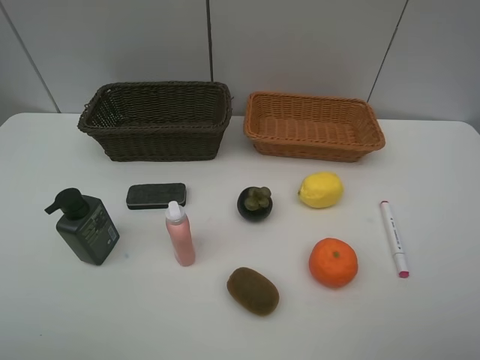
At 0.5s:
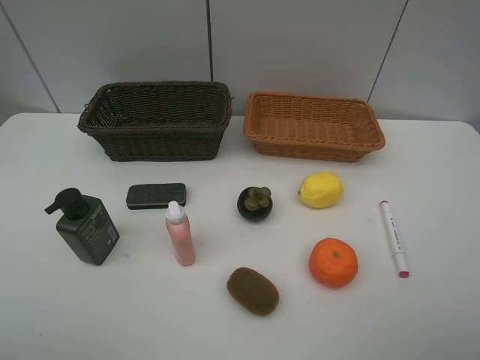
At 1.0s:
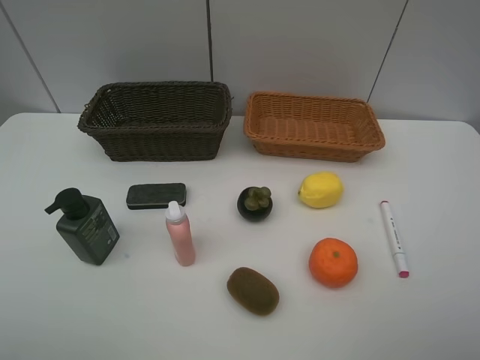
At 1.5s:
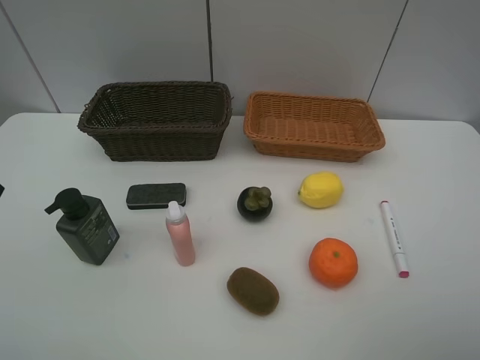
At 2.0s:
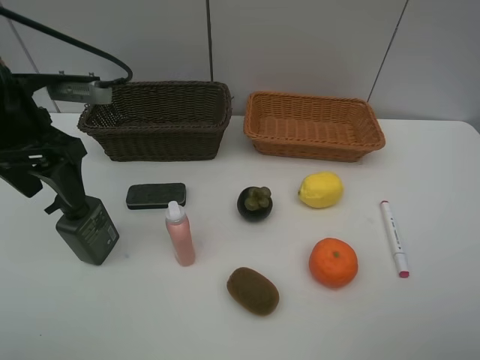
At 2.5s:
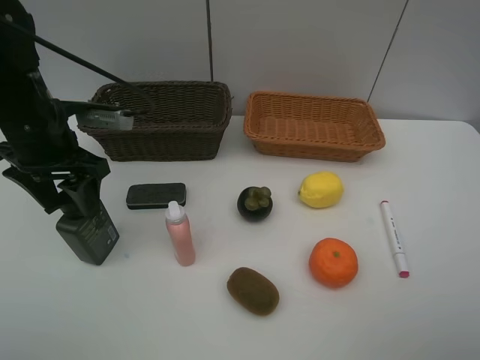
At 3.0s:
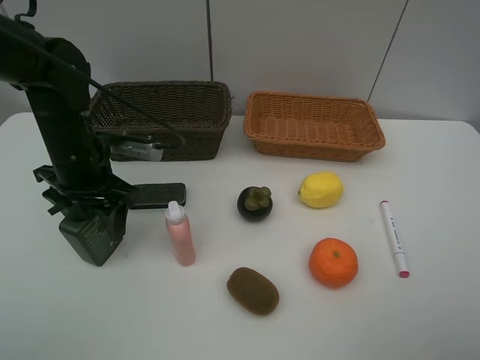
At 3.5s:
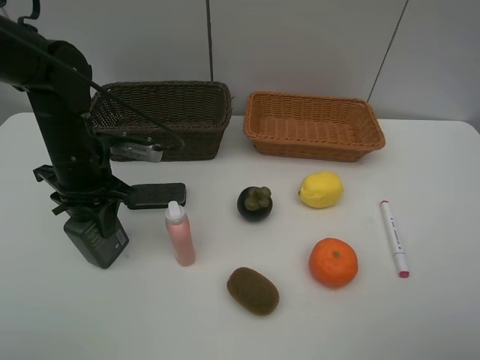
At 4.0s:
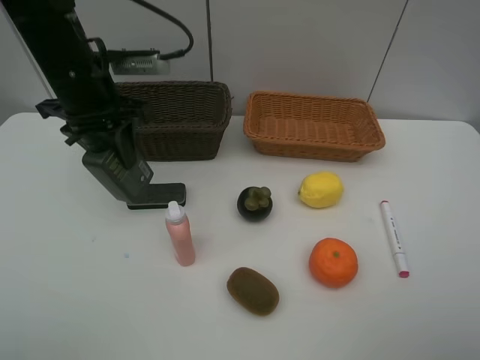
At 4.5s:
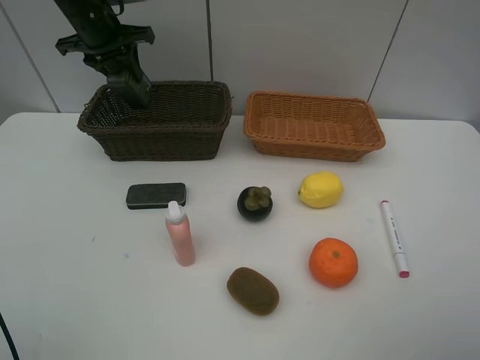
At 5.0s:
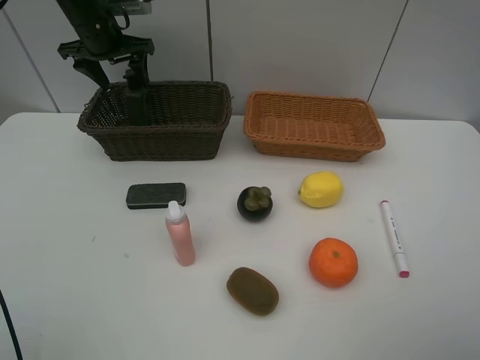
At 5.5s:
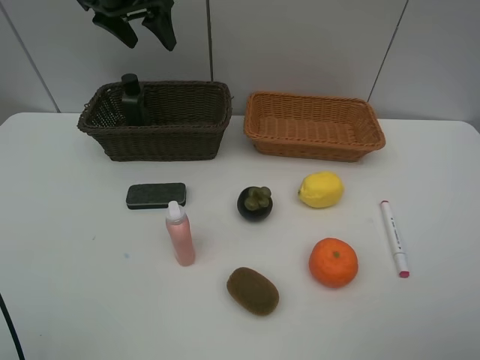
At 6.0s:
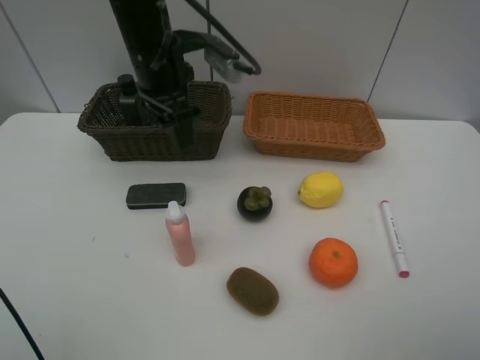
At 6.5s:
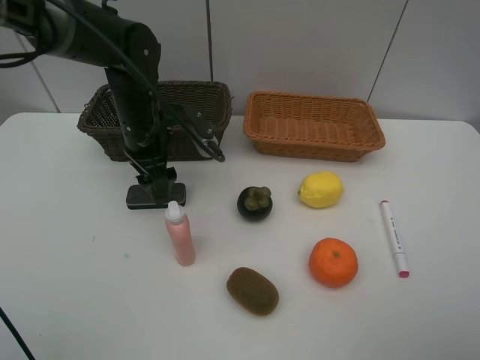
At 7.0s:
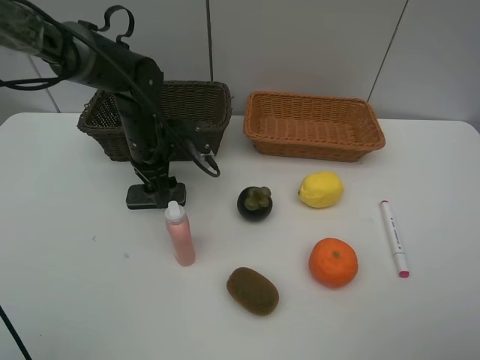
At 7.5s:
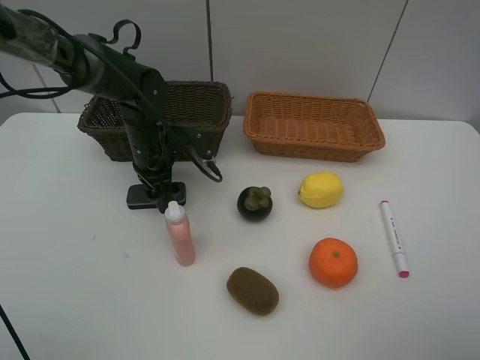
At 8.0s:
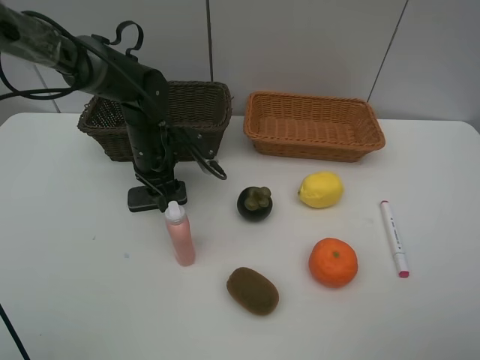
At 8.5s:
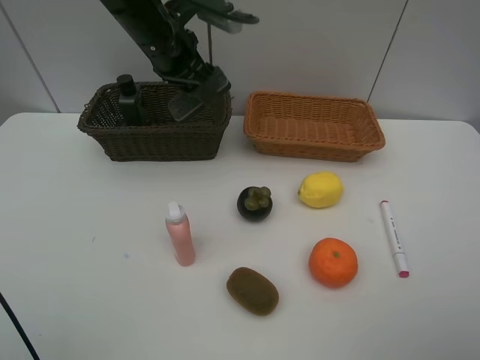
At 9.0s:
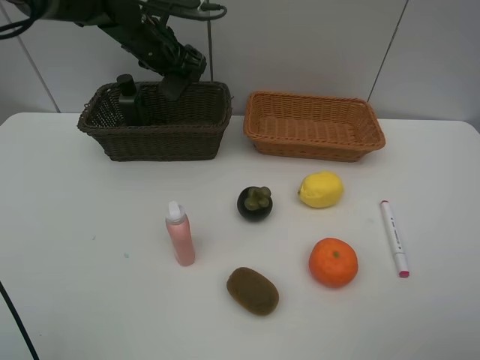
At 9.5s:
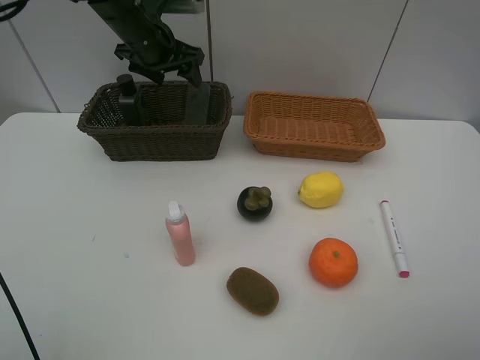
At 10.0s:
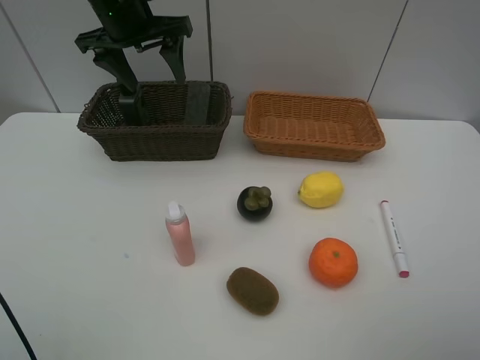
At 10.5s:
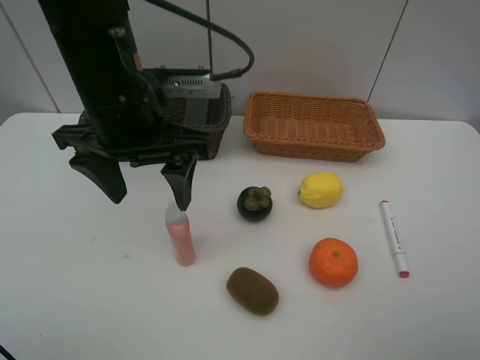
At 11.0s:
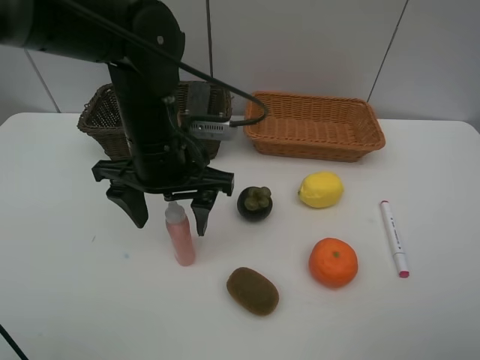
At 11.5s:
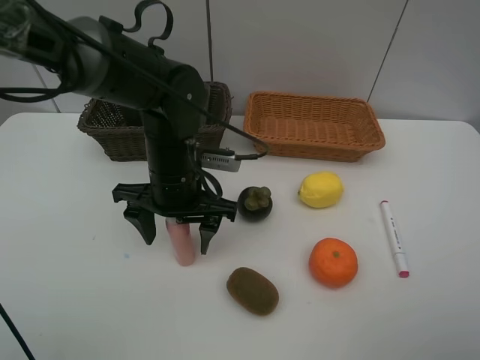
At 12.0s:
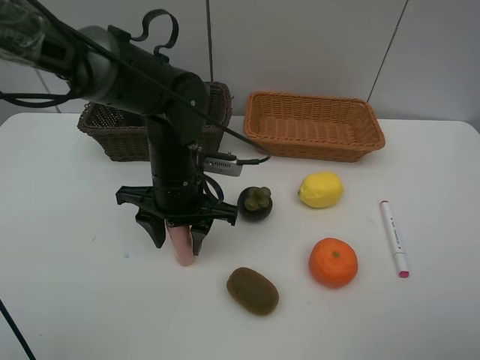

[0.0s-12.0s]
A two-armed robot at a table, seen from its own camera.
Task of the whole recording: Place multiple objects separately in different baskets.
Step, 0.0s to 3.5s: Pick up the hard facial cleanser with left gripper.
Step, 4.0s to 5.0s: Place the hard facial cleanser in the dark basket with left gripper.
Step, 5.5s to 8.0s: Pick up blackboard eraser with left gripper.
Step, 8.5s to 9.5s: Place the blackboard eraser in the dark basket with left gripper.
0.0s to 2.0s: The left gripper moves forward, about 30 cm.
2.0s to 4.0s: The left gripper goes roughly 10 cm forward and to the right, reaches approximately 10 cm downward, then returns, and closes its fingers.
4.0s to 6.0s: The left gripper is displaced to the right by some 10 cm, travels forward and back again, about 15 cm each way, and opens.
6.0s to 8.0s: The left gripper is displaced downward by roughly 15 cm, and closes its fingers.
8.0s to 10.0s: The left gripper moves up and down over approximately 20 cm, changing direction 2 times, and opens its fingers.
10.0s to 12.0s: The left gripper travels downward, backward and to the right by approximately 20 cm, and closes its fingers.

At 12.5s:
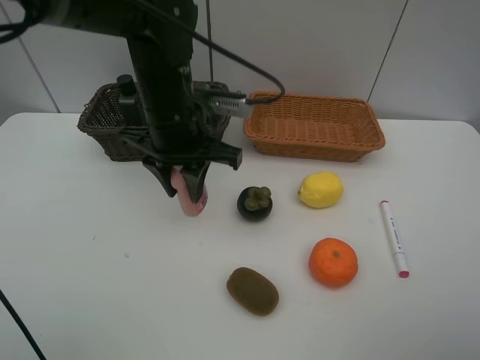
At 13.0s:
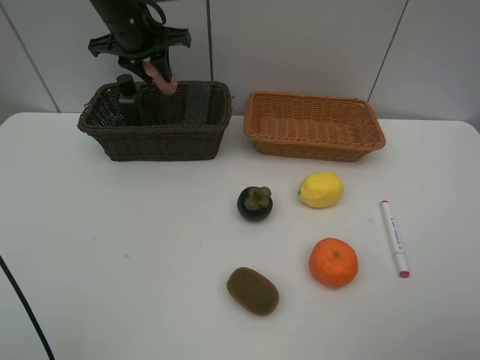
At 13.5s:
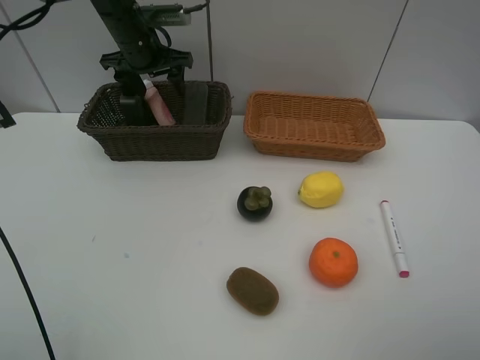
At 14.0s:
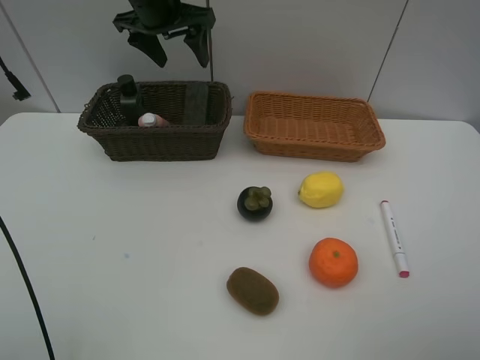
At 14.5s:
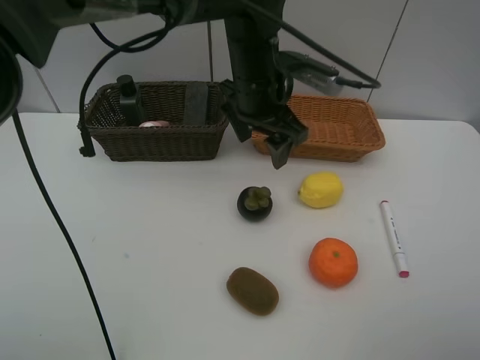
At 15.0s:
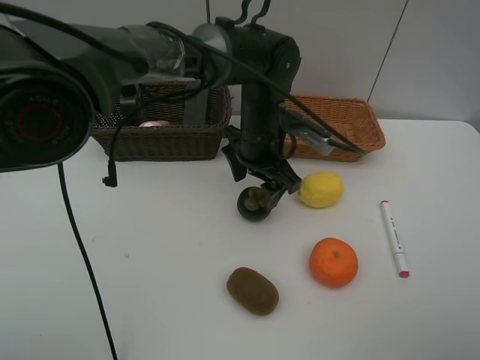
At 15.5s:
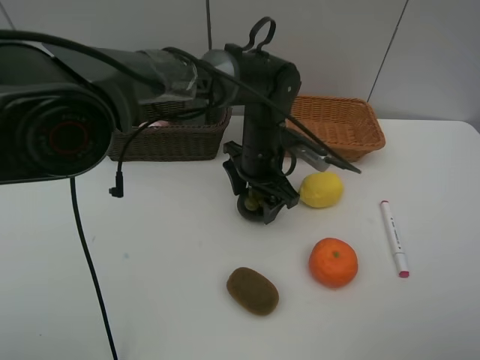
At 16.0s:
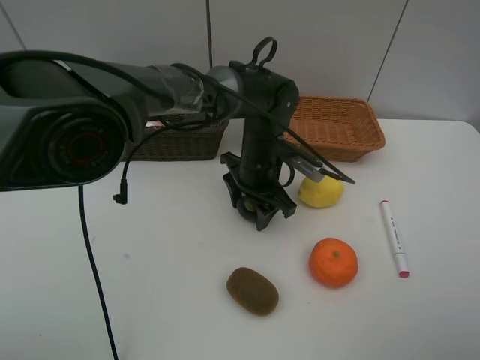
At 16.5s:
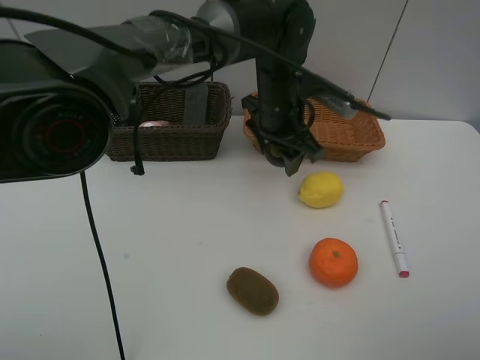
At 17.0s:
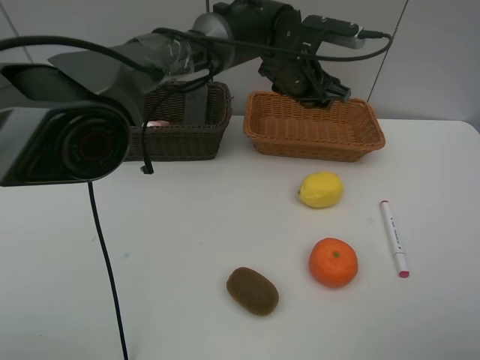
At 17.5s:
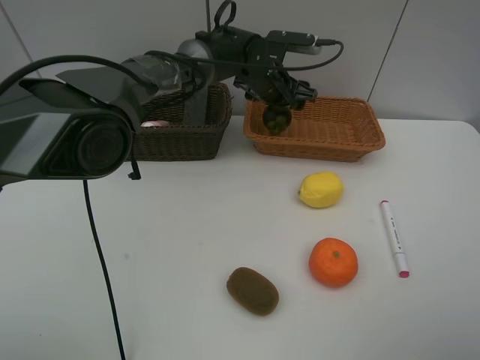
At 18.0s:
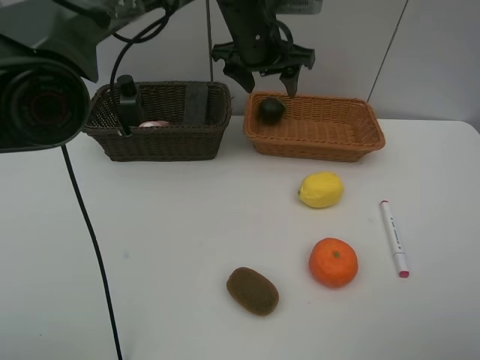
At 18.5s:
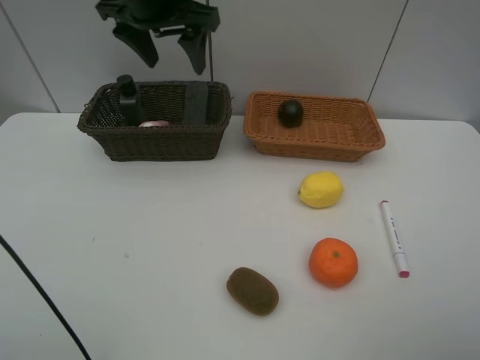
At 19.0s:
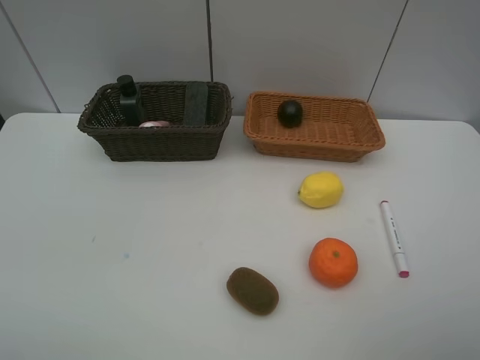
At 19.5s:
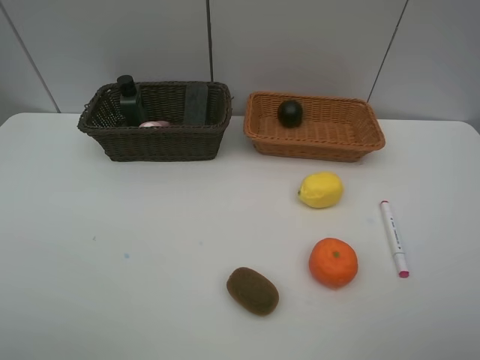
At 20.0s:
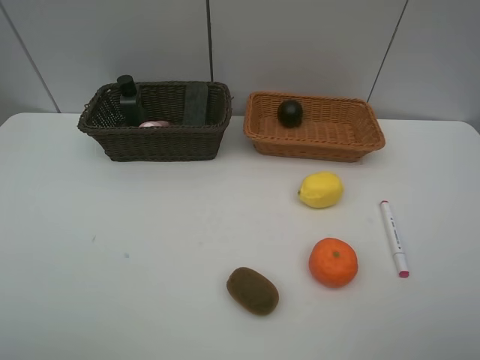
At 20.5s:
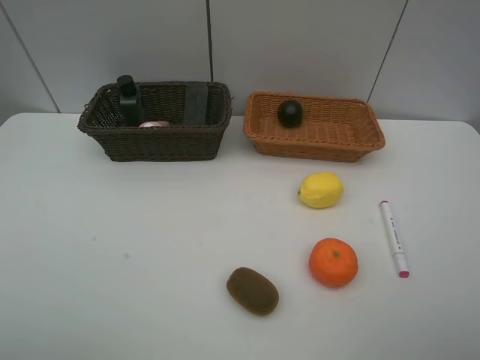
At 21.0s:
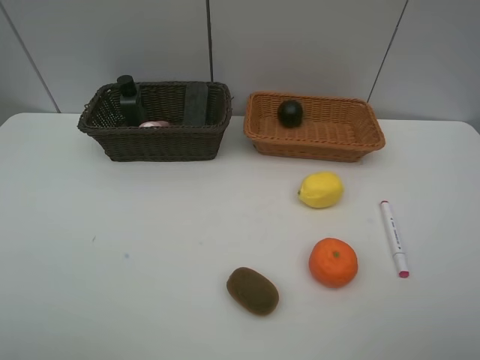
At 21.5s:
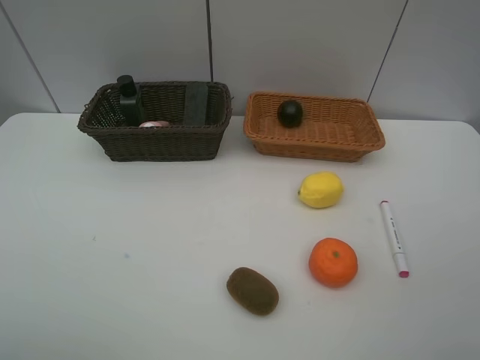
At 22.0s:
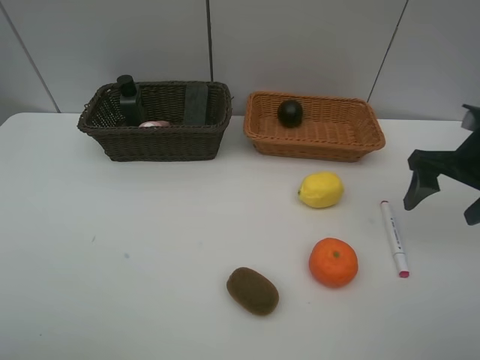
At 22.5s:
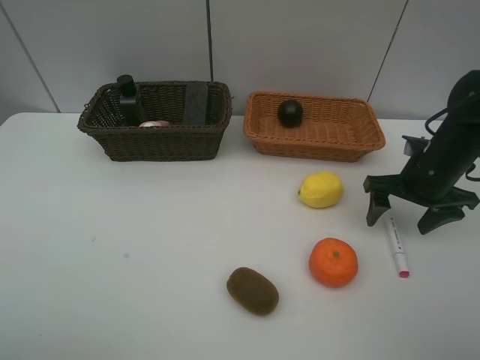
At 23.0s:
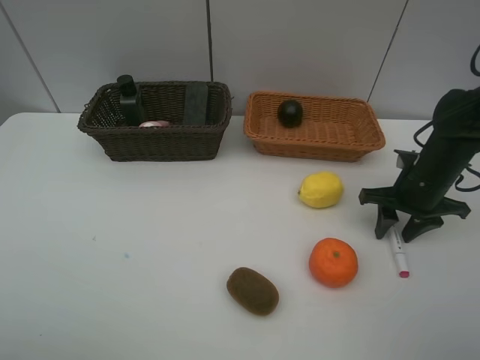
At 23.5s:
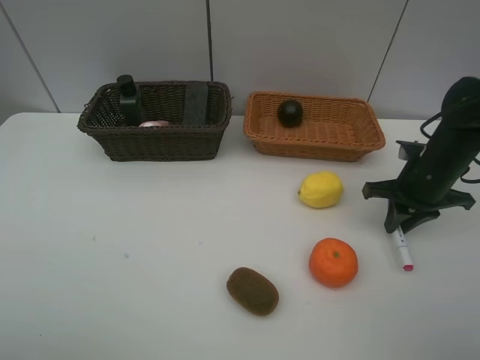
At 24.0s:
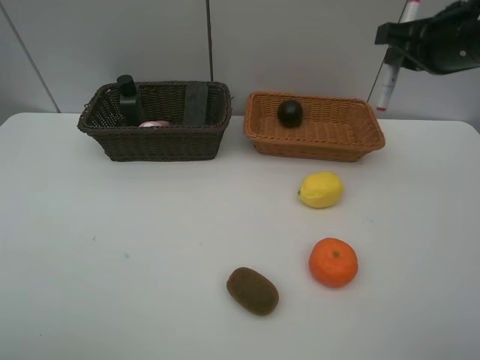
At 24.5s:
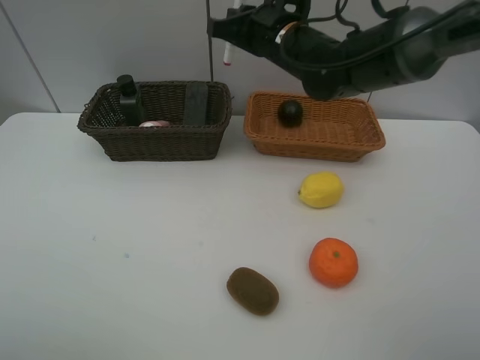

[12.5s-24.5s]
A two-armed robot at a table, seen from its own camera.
Task of the whole recording: Place multiple objects separately in different baskets.
Step, 12.5s to 13.5s: Place the laundry detergent in the dark basket with left gripper.
Step, 14.0s to 16.0s: Pick up the mangosteen with left gripper.
Step, 16.5s to 17.5s: Place the mangosteen in the light basket with left gripper.
Step, 18.0s to 23.5s: Pick up pink marker pen with right gripper.
12.5s to 14.5s: The left gripper moves to the right, roughly 10 cm, and opens its fingers.
14.5s to 16.5s: The left gripper moves approximately 10 cm downward and comes back.
16.5s to 18.5s: The left gripper travels to the left and upward by about 25 cm.
18.5s to 20.5s: The left gripper moves backward and to the left, approximately 40 cm.
20.5s to 22.5s: The right gripper shifts about 35 cm forward and downward.
22.5s to 24.5s: The right gripper travels to the left and upward by roughly 25 cm, and closes.

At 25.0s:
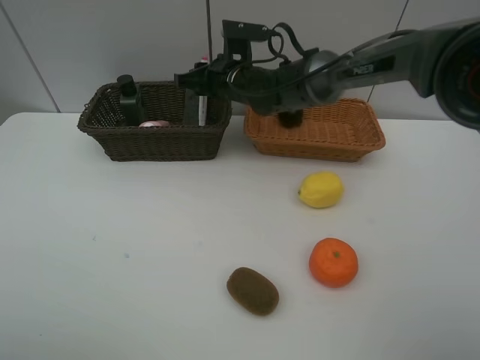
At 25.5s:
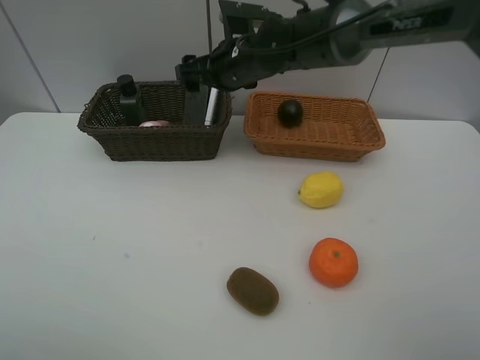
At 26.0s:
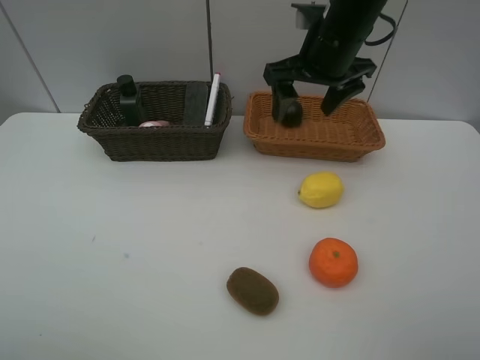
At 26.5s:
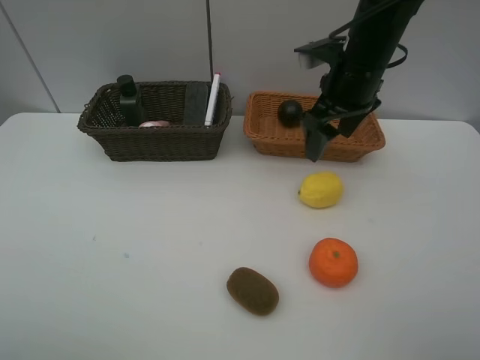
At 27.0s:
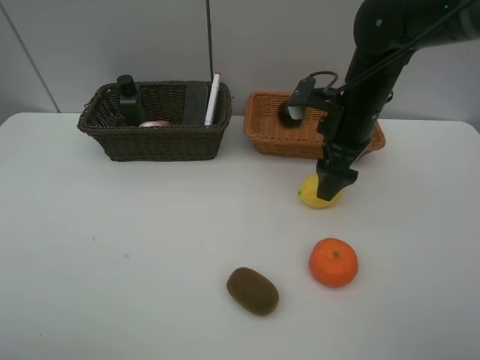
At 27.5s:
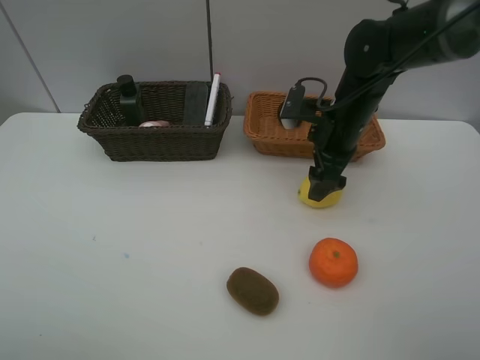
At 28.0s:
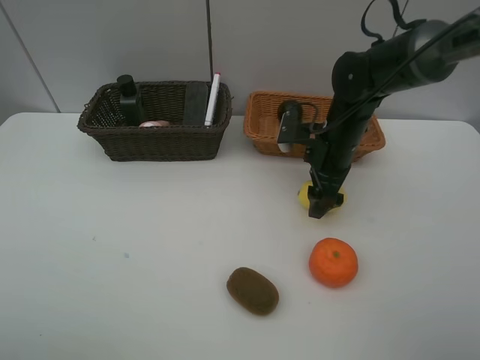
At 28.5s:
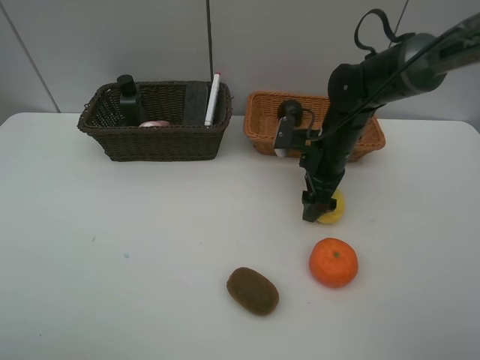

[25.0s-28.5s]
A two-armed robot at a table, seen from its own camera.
Task of the whole recording: Place multiple objects separately in different baskets.
25.0s to 27.0s: The right gripper moves to the right and backward, some 20 cm.
27.0s to 28.5s: The right gripper heads downward, covering roughly 10 cm.
